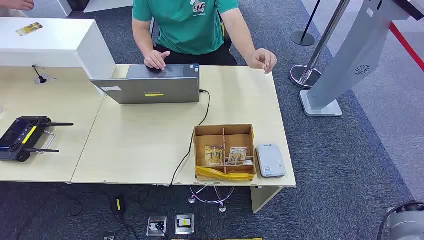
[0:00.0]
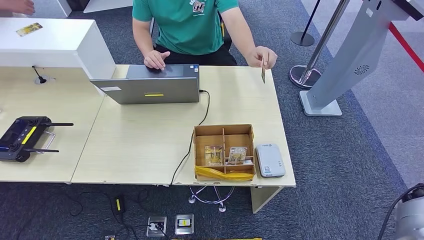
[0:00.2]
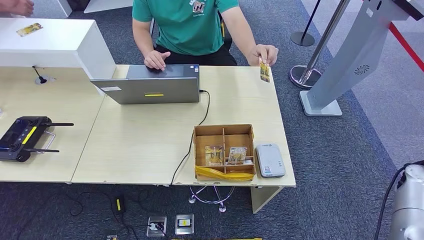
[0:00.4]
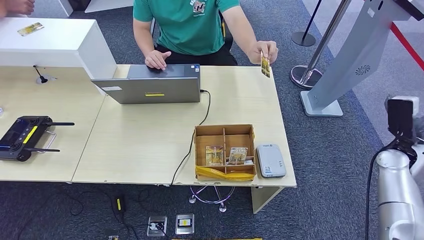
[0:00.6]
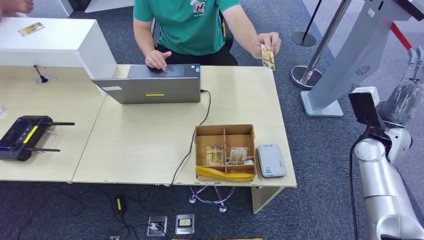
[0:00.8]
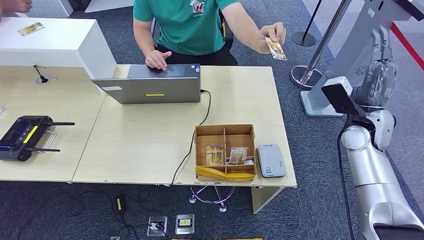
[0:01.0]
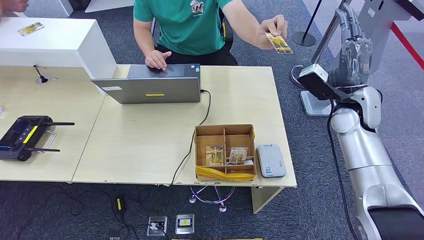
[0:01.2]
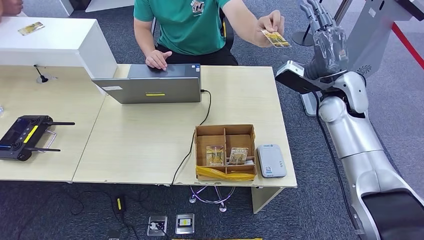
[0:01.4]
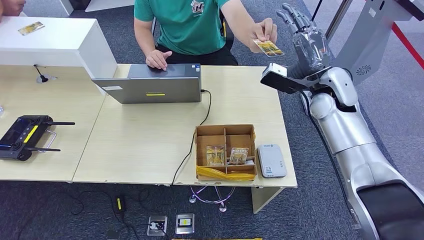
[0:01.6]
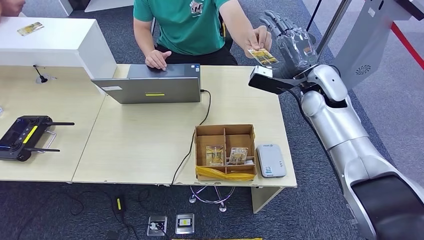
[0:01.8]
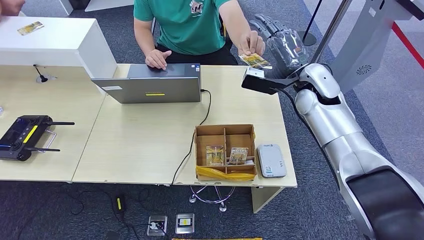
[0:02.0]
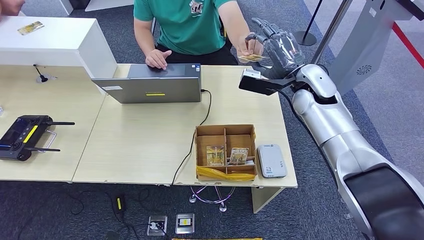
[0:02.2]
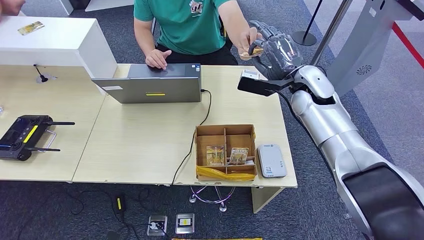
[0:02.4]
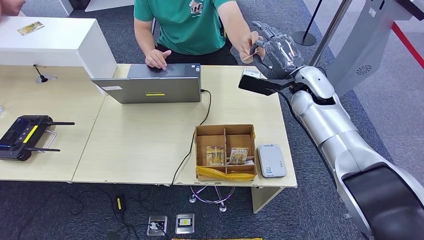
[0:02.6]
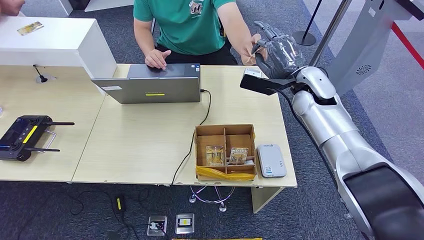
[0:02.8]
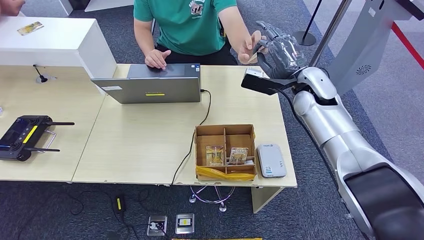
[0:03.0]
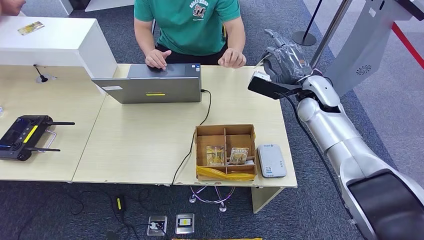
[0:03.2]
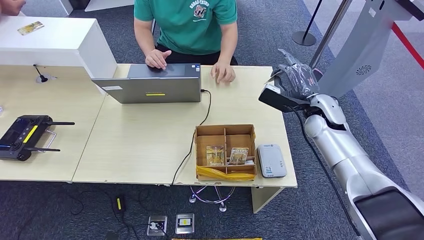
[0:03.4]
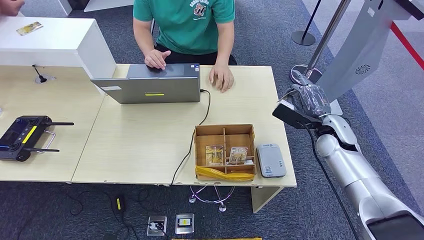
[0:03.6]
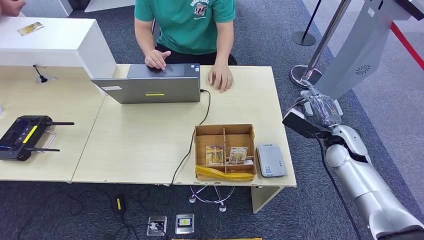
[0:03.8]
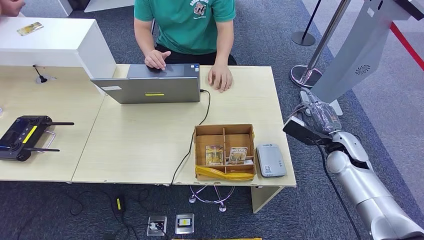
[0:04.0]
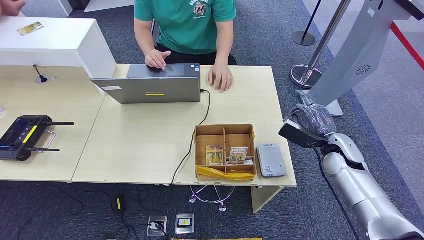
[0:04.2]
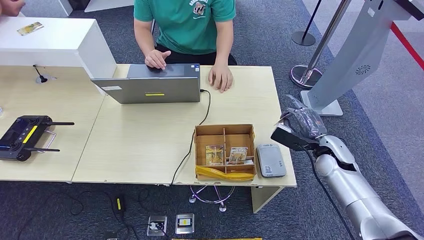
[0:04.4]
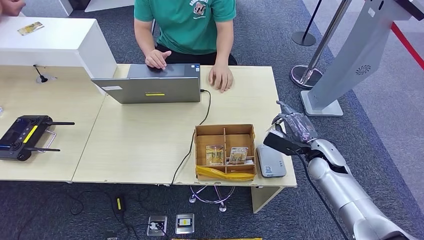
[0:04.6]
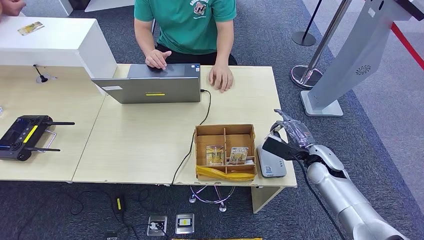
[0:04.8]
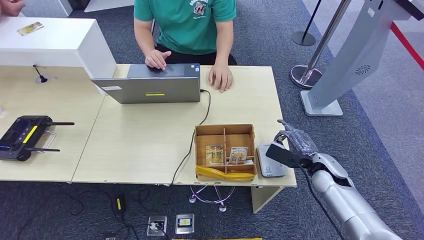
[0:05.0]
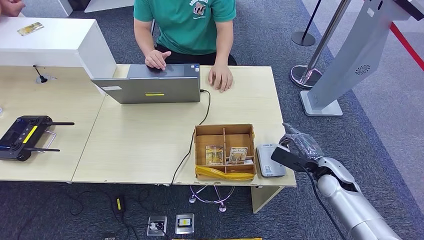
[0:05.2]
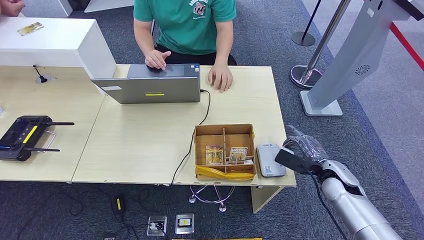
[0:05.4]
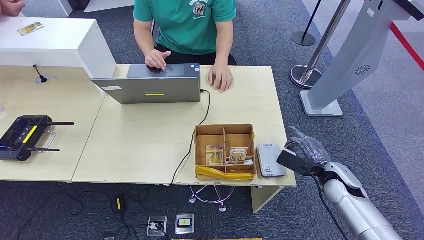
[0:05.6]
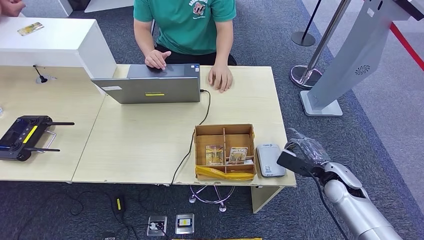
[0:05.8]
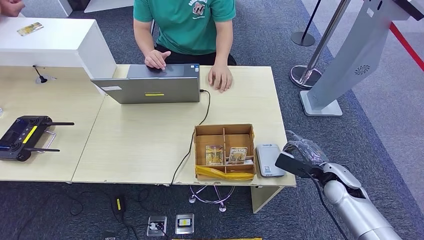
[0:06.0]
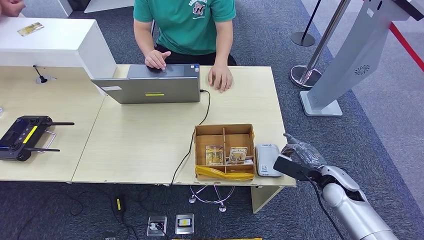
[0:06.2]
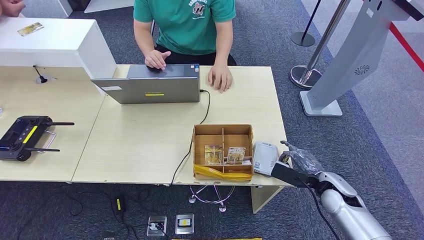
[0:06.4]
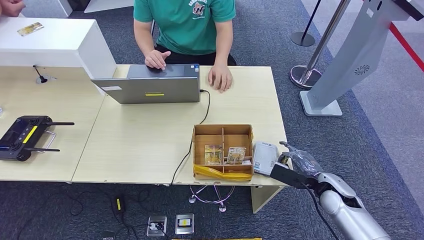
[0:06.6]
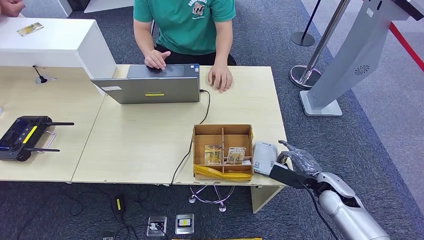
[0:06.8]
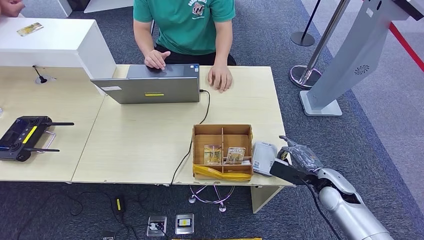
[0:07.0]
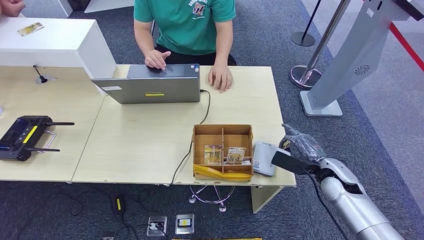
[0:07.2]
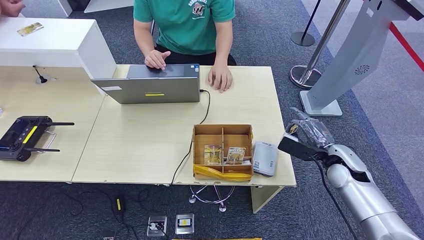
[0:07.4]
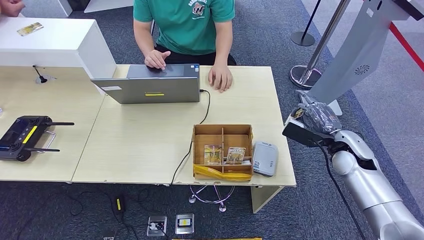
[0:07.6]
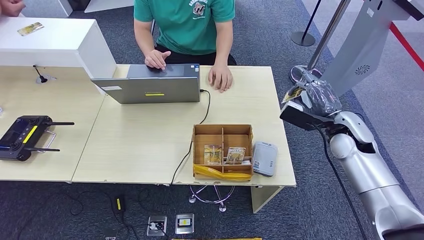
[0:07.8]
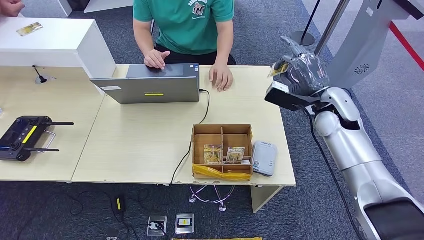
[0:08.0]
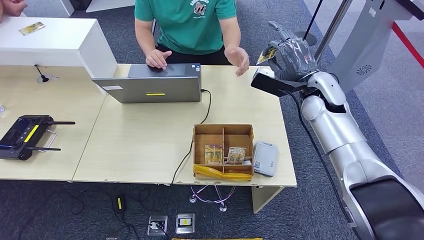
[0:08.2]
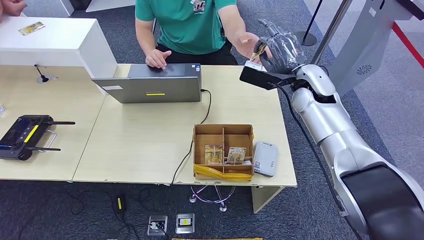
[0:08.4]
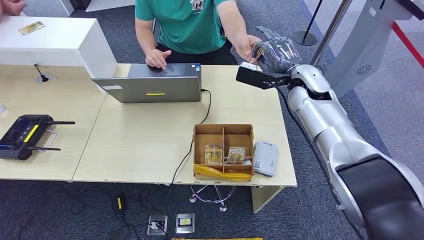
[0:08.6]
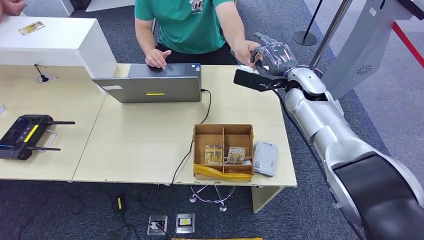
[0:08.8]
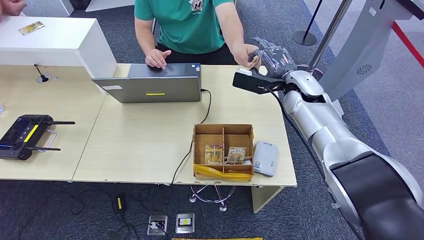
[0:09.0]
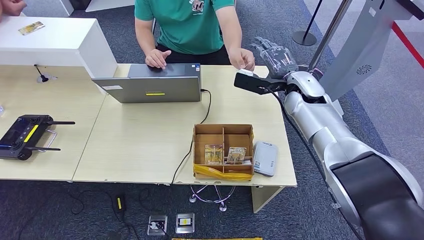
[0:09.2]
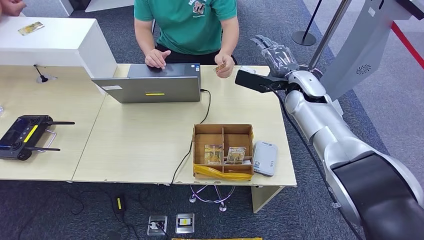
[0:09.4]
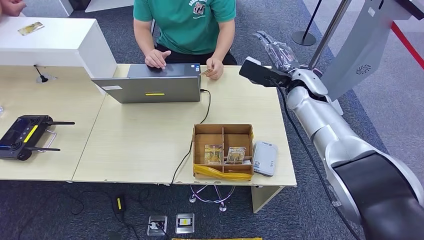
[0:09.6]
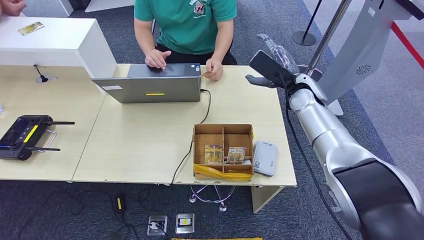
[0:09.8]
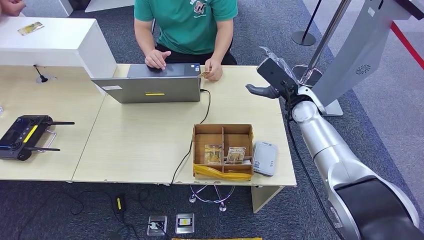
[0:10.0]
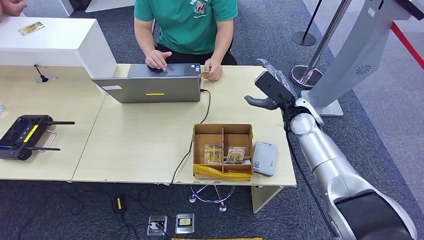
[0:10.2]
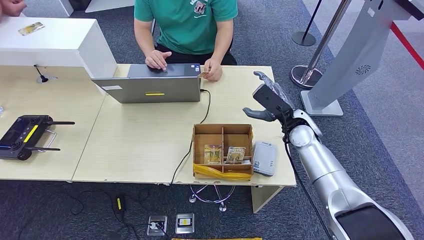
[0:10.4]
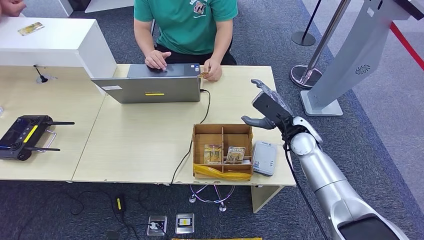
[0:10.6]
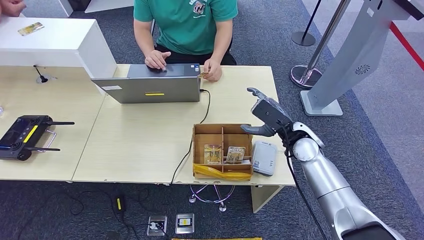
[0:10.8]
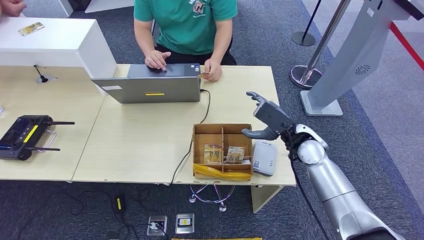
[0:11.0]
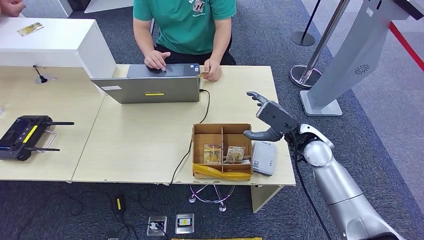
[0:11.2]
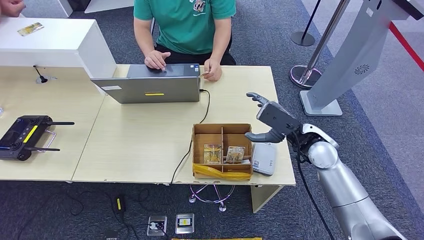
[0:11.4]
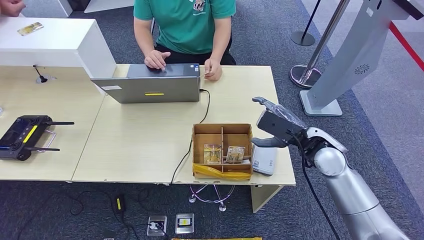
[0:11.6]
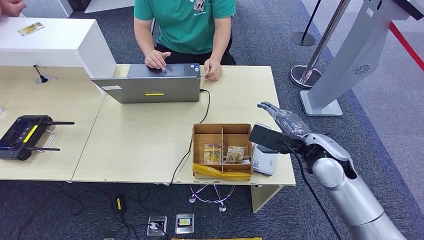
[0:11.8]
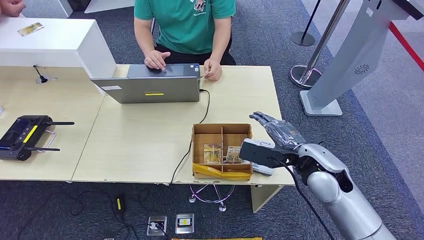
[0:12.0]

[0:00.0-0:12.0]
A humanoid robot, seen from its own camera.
Step, 0:00.0 to 0:03.6: Take the ID card from the person's hand.
Step, 0:03.8 to 0:07.6: Place the ID card on the card reader.
Step, 0:07.8 to 0:09.2: Hand the ID card to the person.
0:01.6 to 0:03.0: The hands stay close to where they were, moving slightly.
0:03.0 to 0:04.4: The right hand shifts approximately 20 cm downward, backward and to the right.
0:04.4 to 0:06.0: The right hand moves backward, roughly 5 cm.
0:06.0 to 0:07.6: The right hand travels upward by roughly 10 cm.
0:09.0 to 0:10.4: The right hand travels downward and backward by about 10 cm.
0:10.4 to 0:12.0: The right hand goes about 10 cm backward.

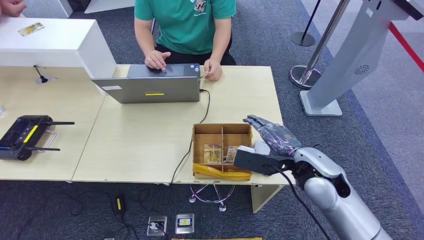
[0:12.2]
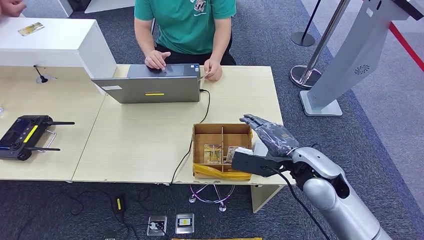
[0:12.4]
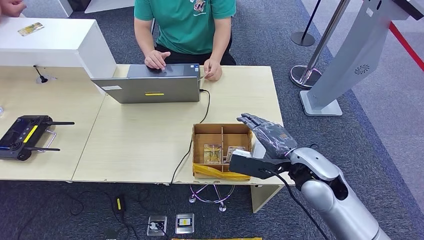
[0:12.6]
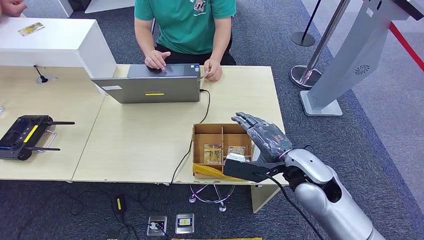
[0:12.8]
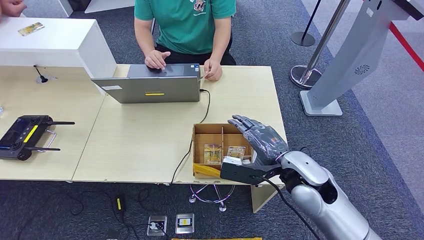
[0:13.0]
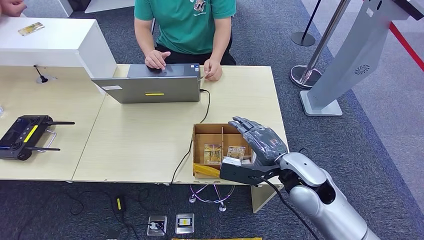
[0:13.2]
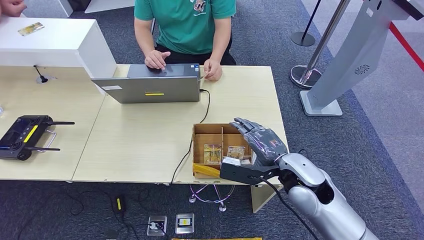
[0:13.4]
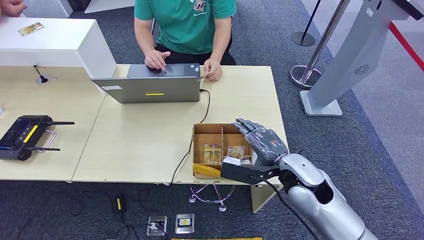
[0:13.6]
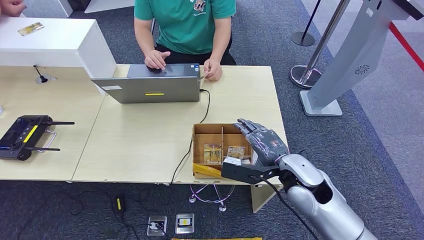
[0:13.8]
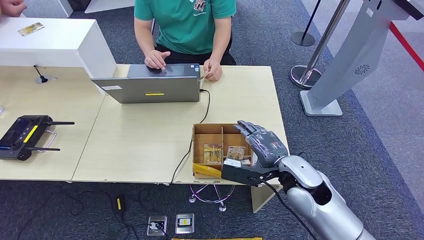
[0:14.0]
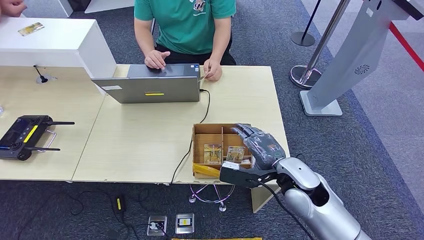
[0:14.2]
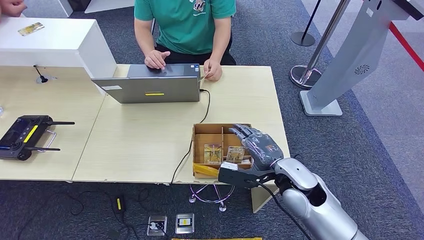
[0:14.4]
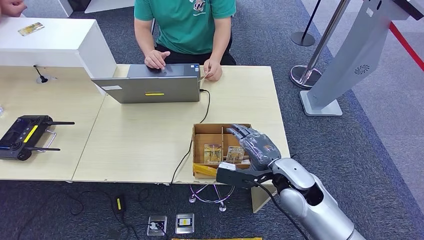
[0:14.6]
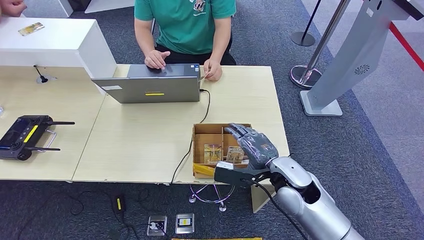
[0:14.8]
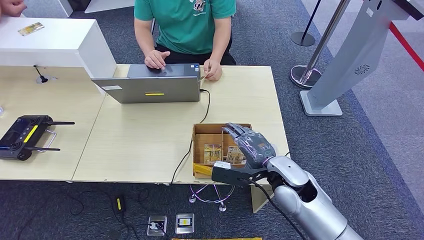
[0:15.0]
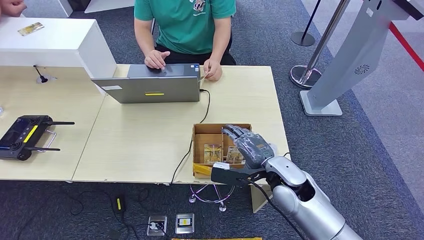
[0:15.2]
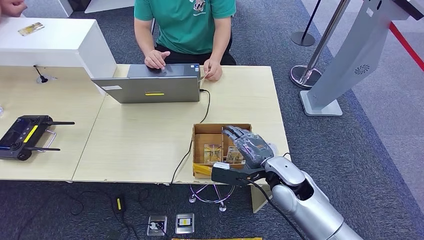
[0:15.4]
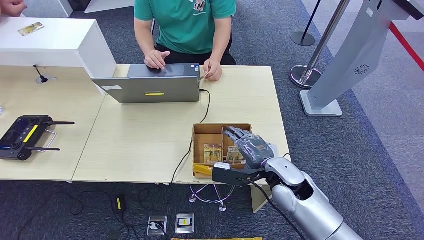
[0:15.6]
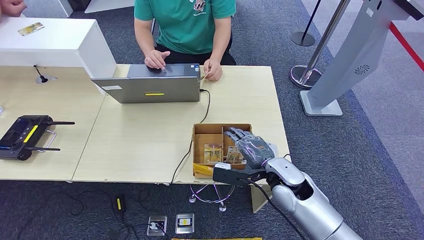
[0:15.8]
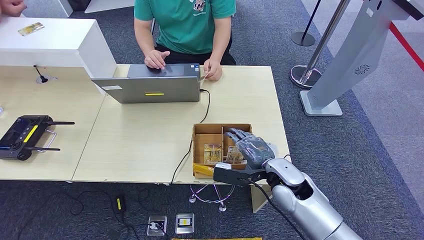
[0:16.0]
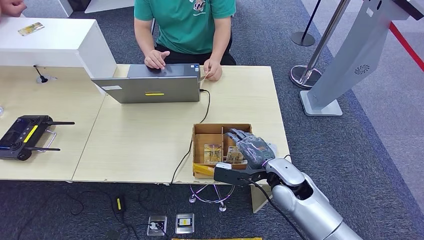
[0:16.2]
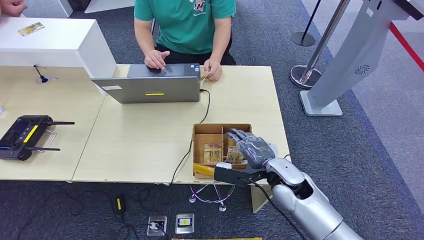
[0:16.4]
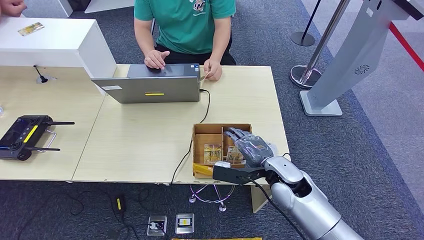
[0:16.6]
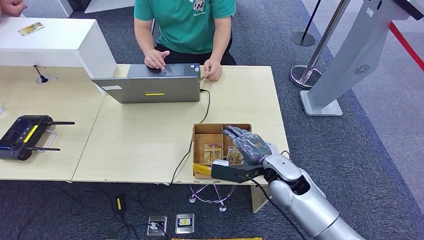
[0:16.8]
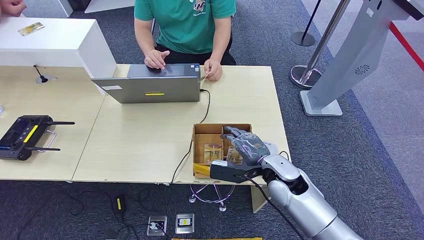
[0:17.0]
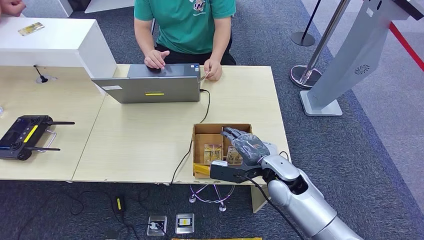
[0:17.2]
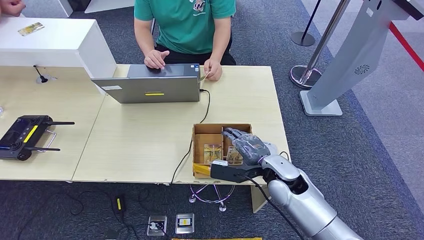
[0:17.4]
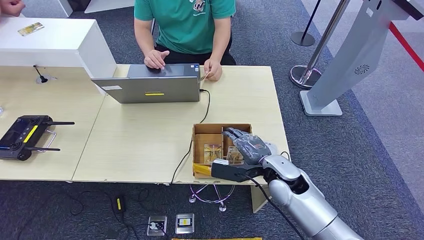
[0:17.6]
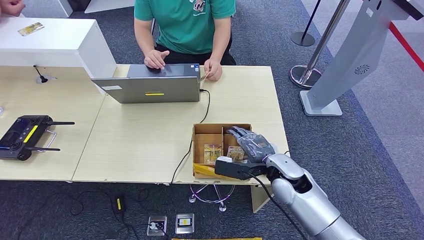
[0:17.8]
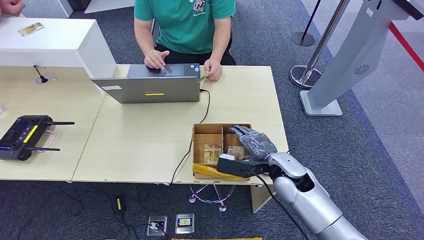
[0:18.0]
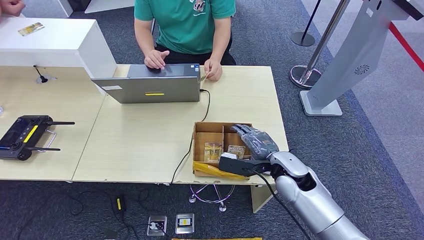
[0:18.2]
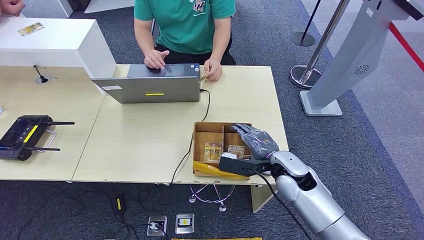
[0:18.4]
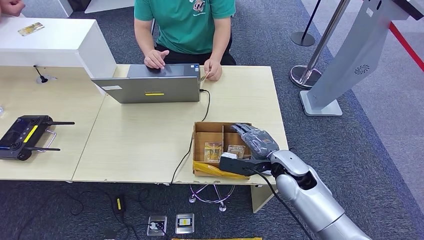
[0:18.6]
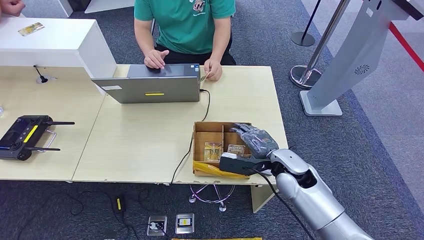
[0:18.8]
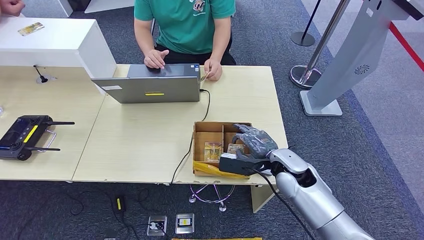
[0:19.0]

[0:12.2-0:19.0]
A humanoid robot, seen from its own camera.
0:12.2 to 0:13.6: The hands move only a little.
0:13.6 to 0:16.2: The hands make only small movements.
0:16.2 to 0:17.6: Neither hand changes place.
0:17.6 to 0:19.0: There are only small adjustments of the hands.
